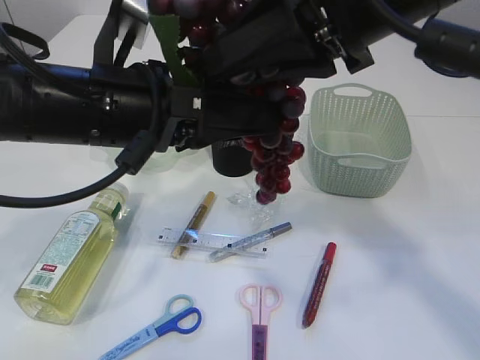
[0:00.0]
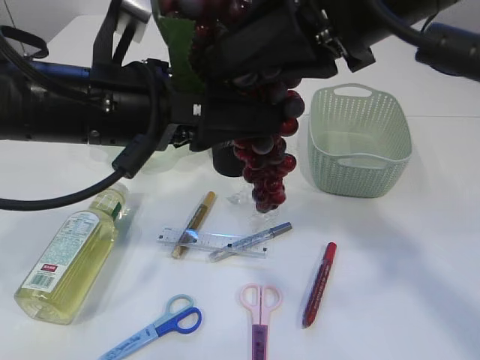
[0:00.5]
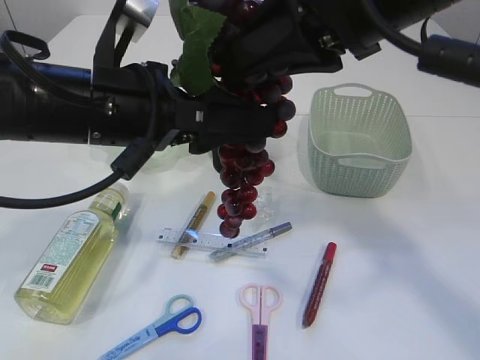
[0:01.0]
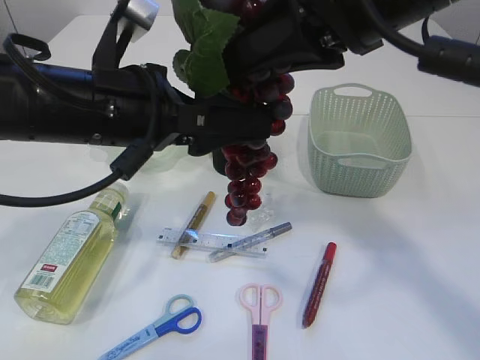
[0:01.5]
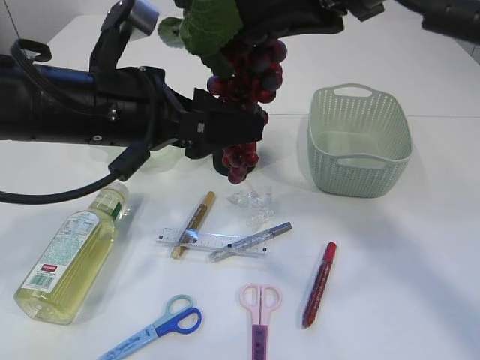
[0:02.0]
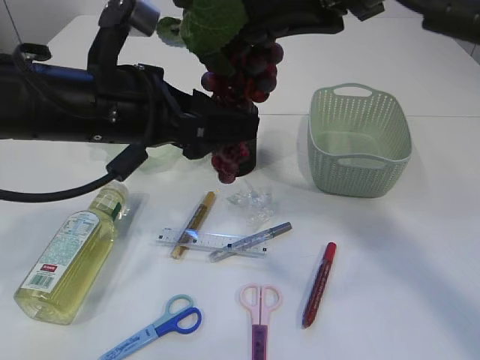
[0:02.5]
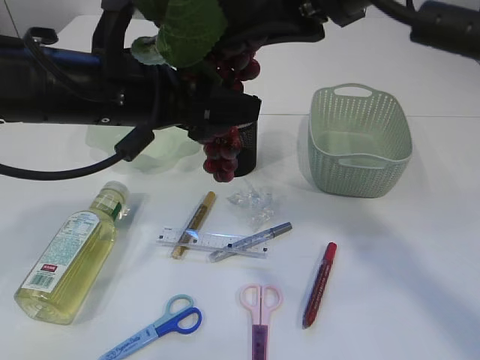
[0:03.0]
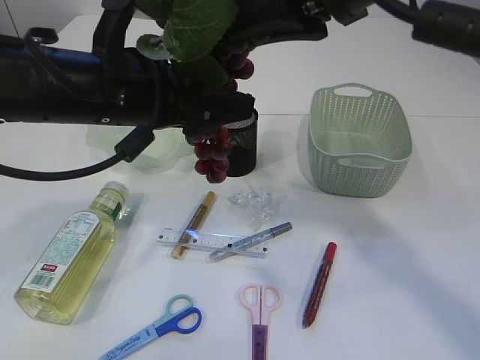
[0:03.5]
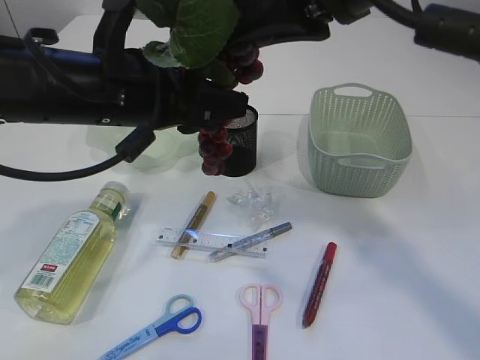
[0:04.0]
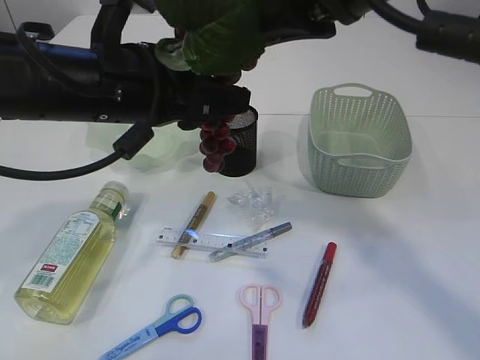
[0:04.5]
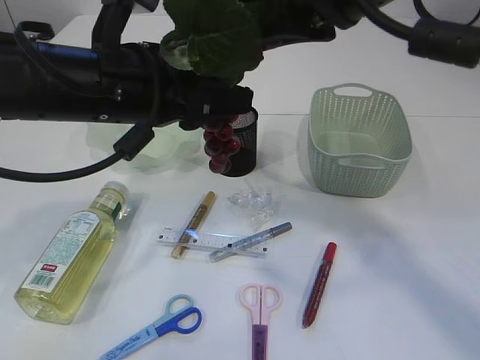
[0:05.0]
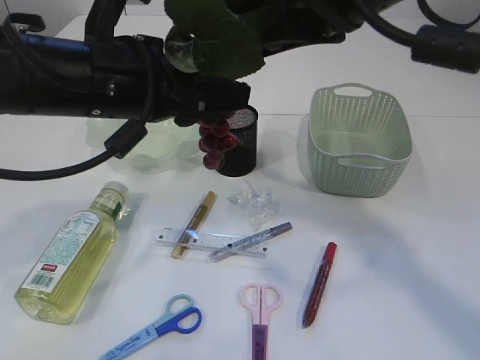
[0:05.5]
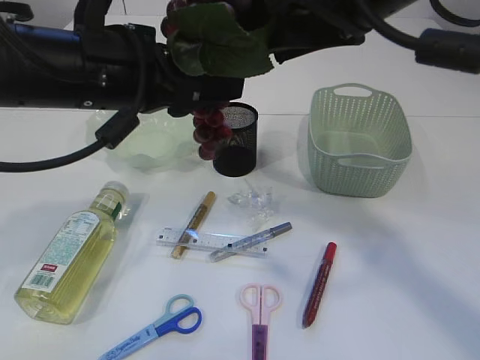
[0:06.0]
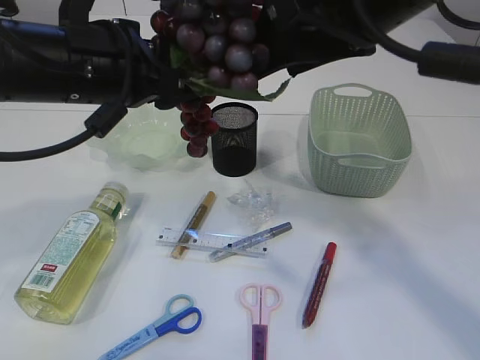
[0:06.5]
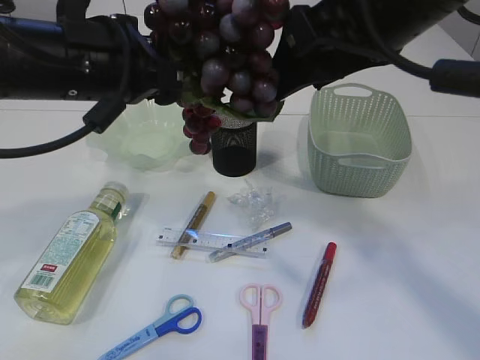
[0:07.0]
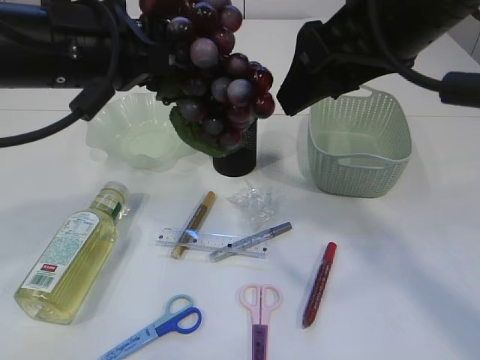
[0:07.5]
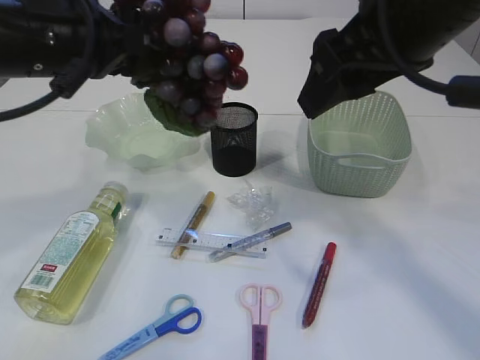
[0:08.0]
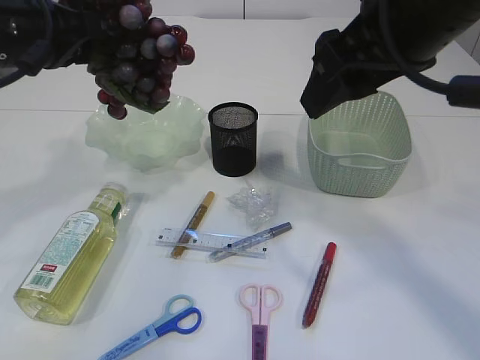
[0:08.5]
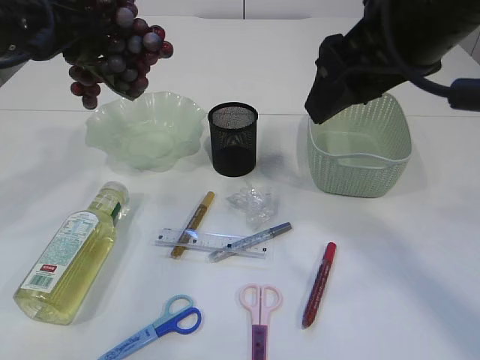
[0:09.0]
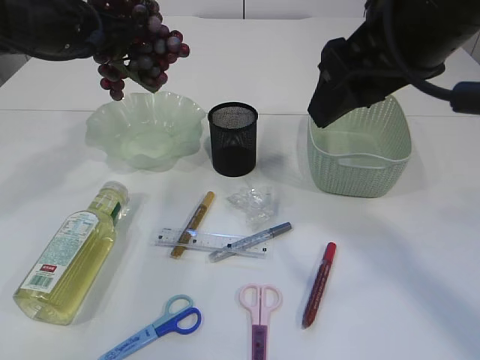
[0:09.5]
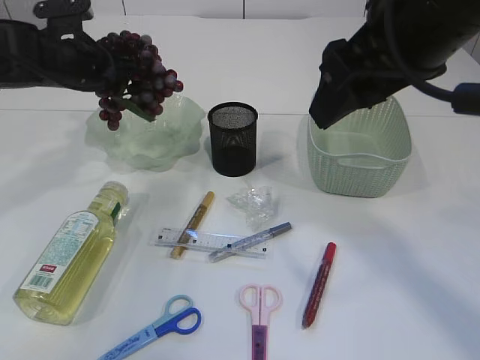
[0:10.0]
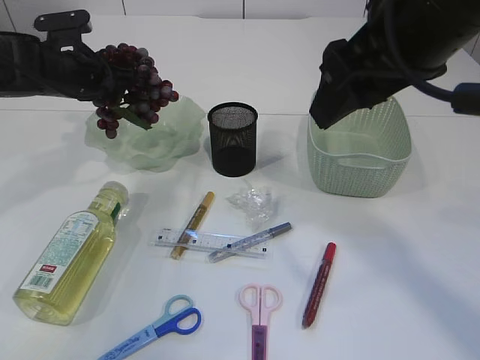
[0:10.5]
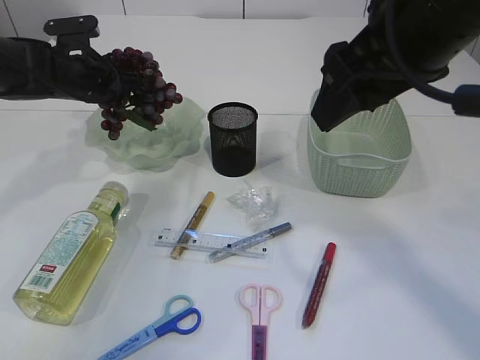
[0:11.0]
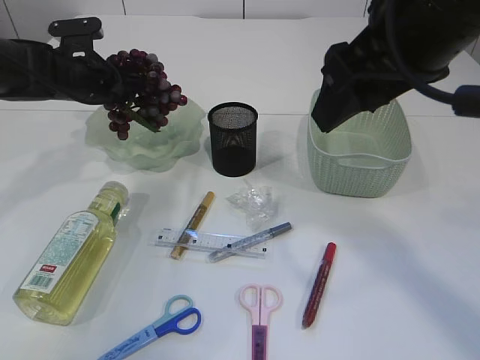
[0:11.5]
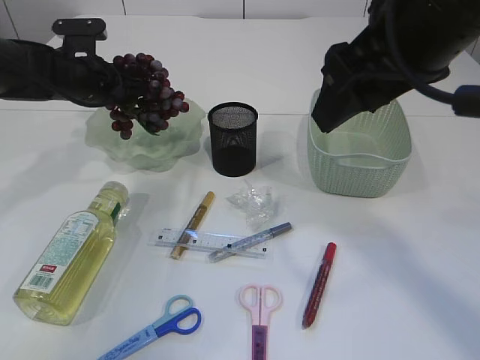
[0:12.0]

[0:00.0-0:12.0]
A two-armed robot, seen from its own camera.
Step, 0:00.0 to 0:07.5: Hand over the grapes.
0:00.0 to 0:02.0: The grippers move only a little.
0:02.0 to 0:04.0: The left gripper closes up.
0:04.0 to 0:06.0: The right gripper opens its fingers.
0:08.0 to 0:10.0: The left gripper travels forward, downward and to the left by roughly 20 cm.
0:10.0 to 0:12.0: There are only small adjustments of the grippers.

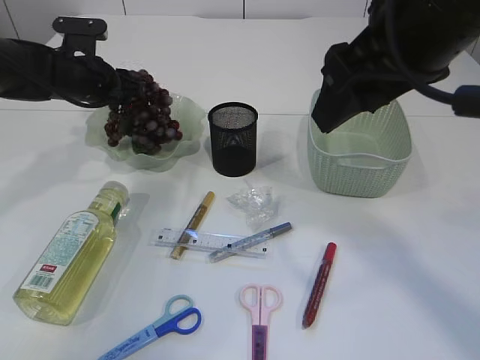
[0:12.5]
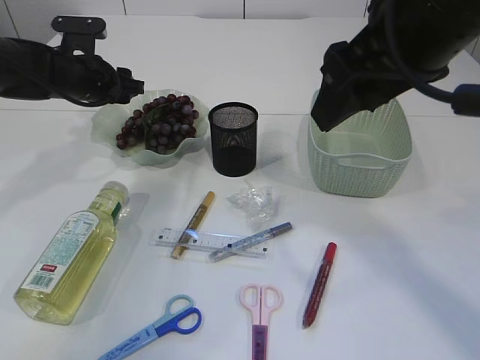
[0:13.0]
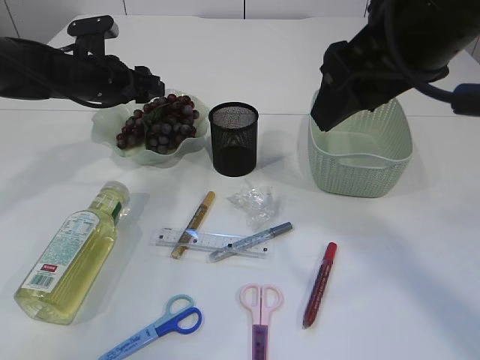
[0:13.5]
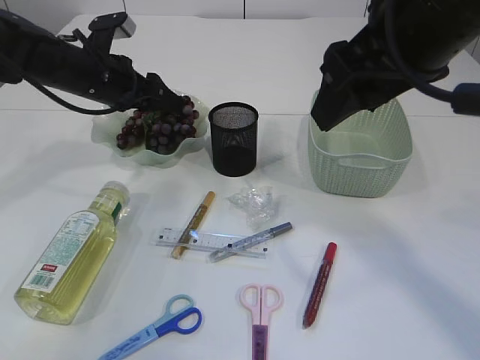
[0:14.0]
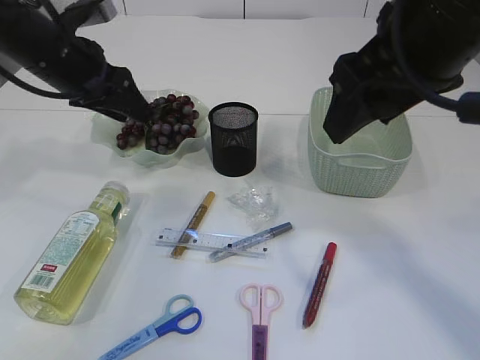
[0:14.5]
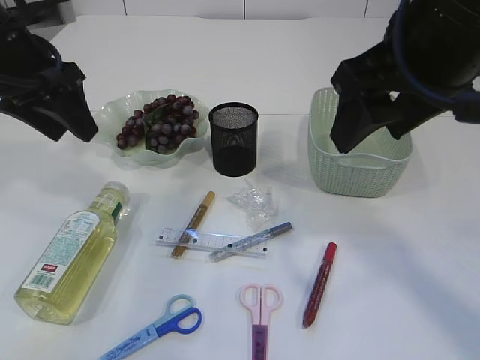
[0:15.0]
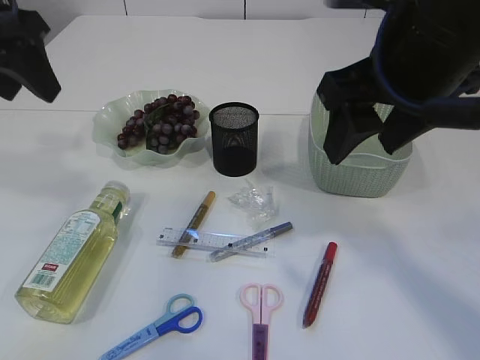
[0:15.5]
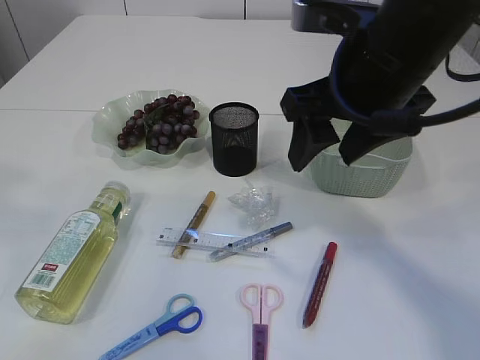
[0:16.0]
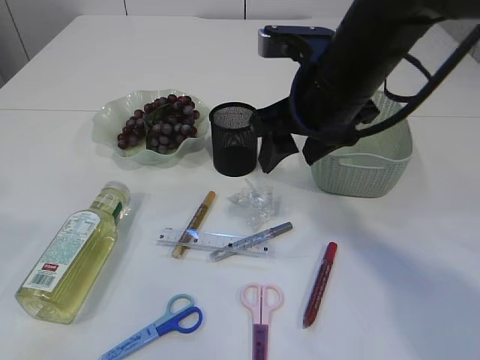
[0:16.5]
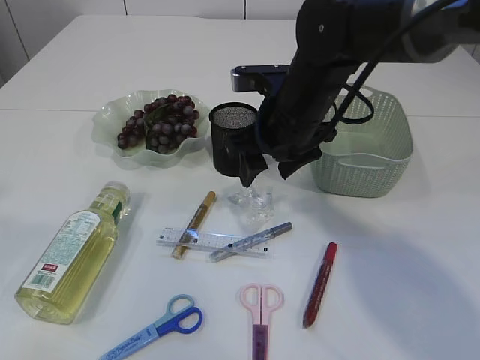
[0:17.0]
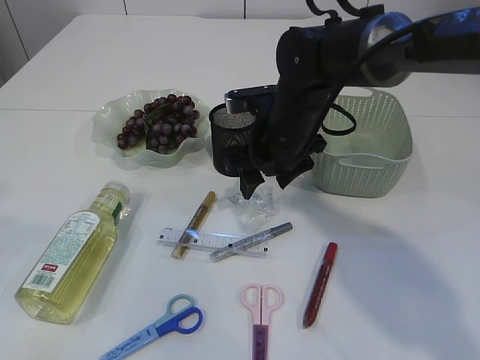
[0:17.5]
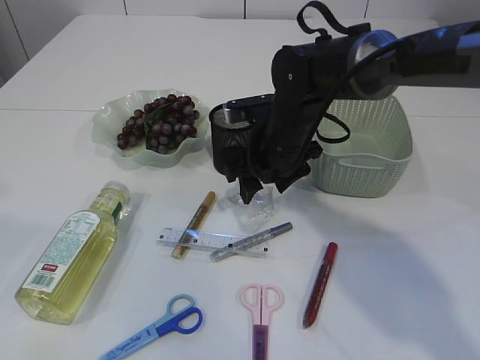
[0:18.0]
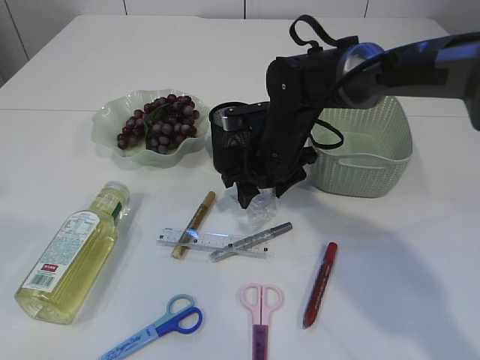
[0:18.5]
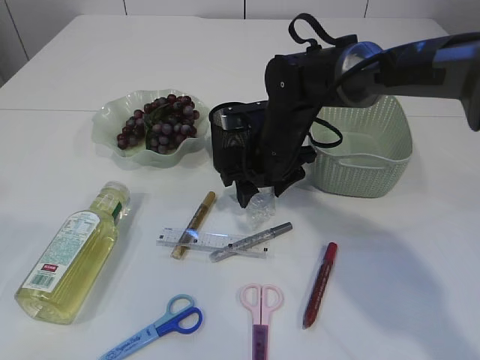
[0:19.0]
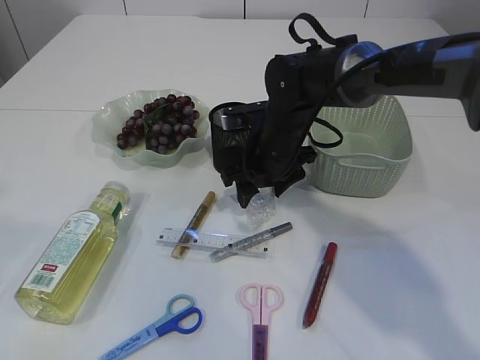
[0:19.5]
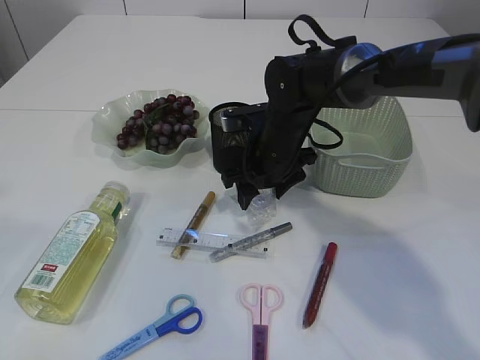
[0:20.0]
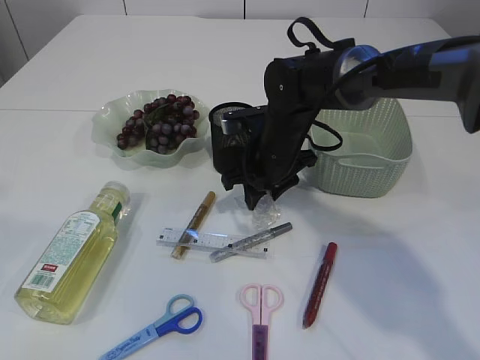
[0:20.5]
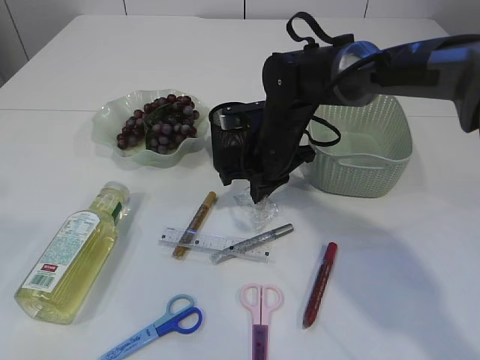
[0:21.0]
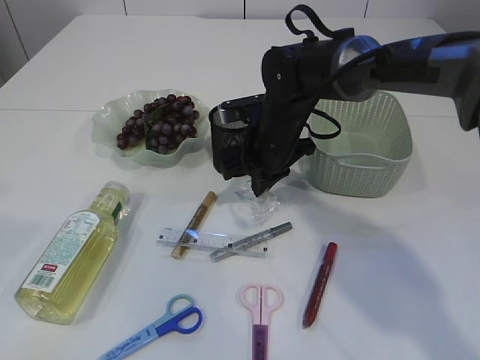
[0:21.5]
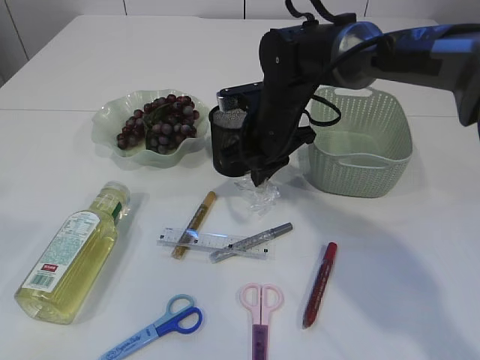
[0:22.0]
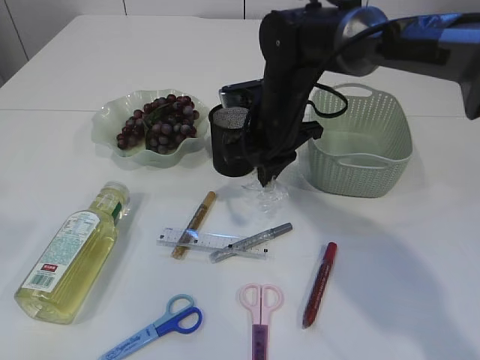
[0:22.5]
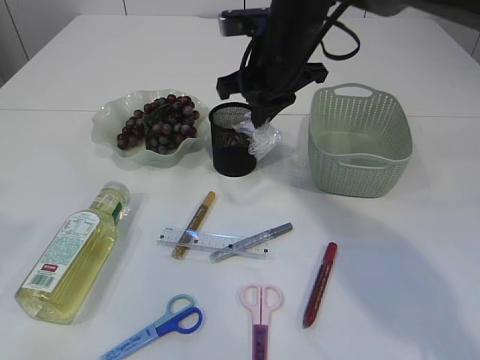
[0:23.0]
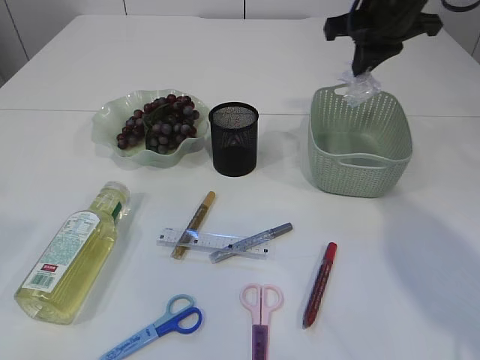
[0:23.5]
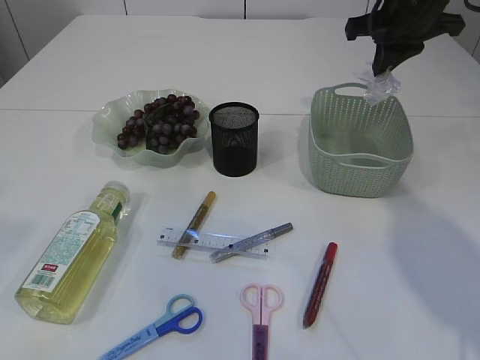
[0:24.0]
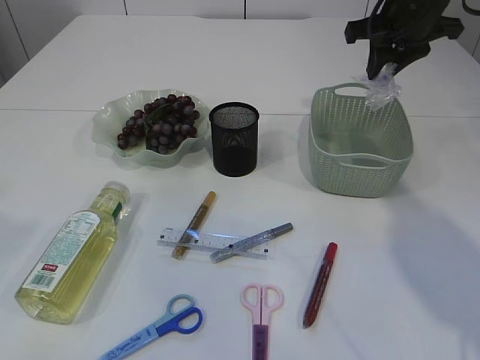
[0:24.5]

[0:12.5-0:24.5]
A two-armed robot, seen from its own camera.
Step, 0:14.5 to 0:22.5: Pick up the plastic.
0:12.5 to 0:14.5: The left gripper heads backward and upward, covering some 10 cm.
0:14.5 to 0:16.5: The right gripper goes approximately 10 cm downward and forward. The left gripper travels backward and upward by approximately 30 cm.
0:16.5 to 0:18.5: The right gripper goes some 15 cm downward and forward.
0:18.5 to 0:20.5: The right gripper closes its fingers.
0:20.5 to 0:22.5: The right gripper closes its fingers.
0:22.5 to 0:24.5: The right gripper heads to the right and upward, covering about 20 cm, and opens up.

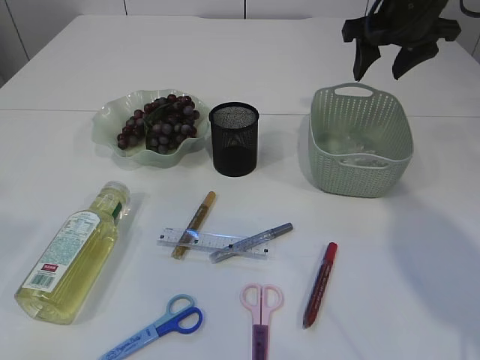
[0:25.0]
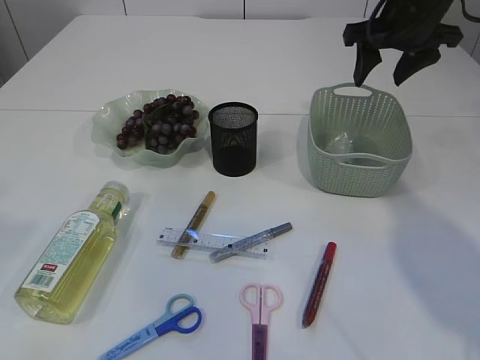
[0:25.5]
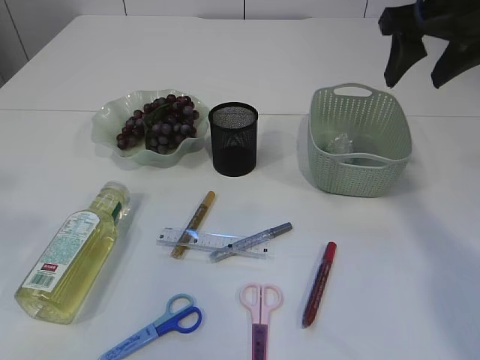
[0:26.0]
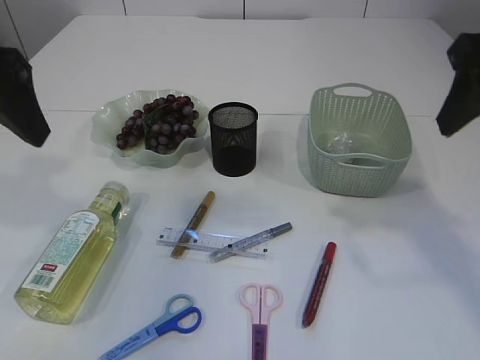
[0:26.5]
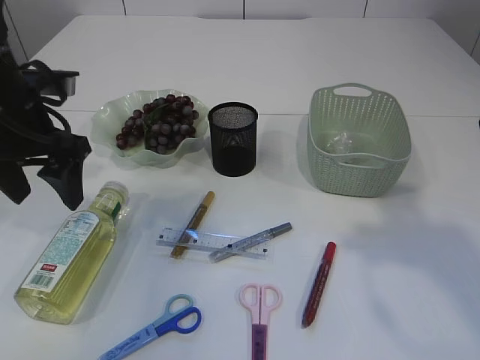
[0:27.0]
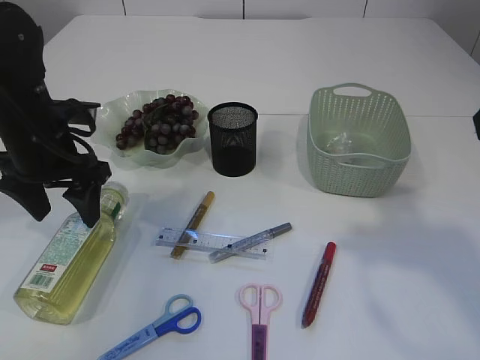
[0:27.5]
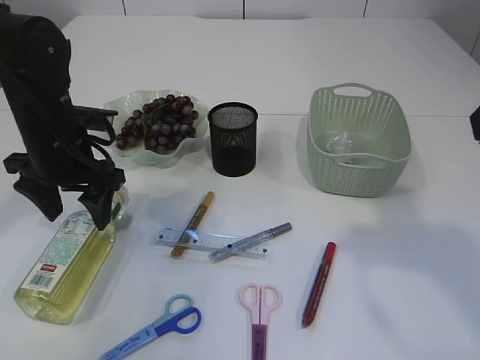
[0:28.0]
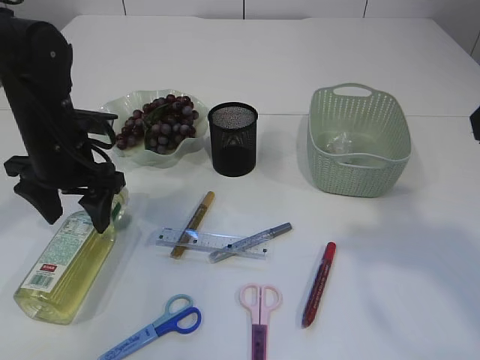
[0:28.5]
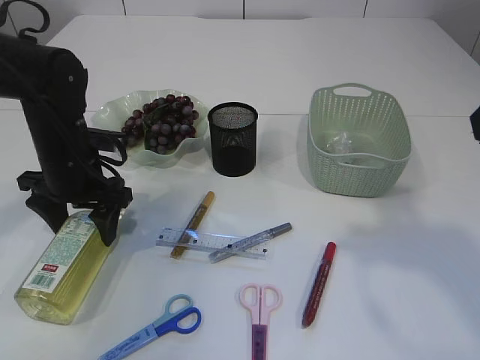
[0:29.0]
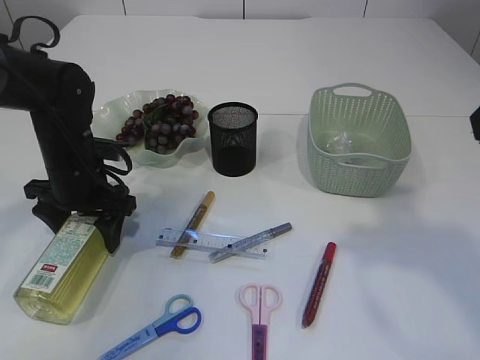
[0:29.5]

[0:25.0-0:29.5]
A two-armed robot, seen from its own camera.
0:25.0 to 0:27.0: The right gripper goes about 25 cm backward, while the left gripper travels downward and forward by approximately 25 cm.
0:27.0 to 0:29.5: The left gripper is displaced downward by some 10 cm.
